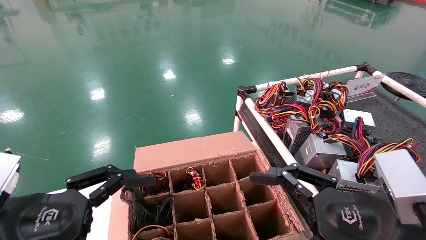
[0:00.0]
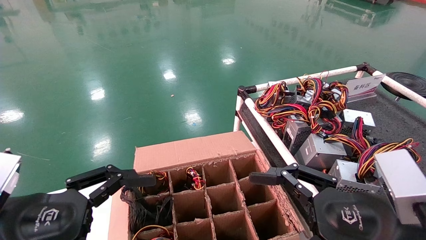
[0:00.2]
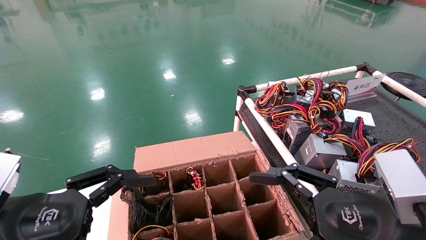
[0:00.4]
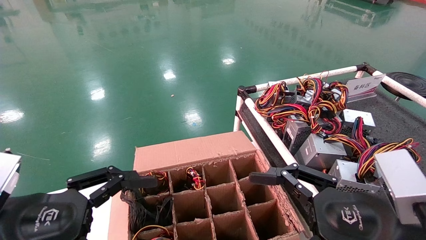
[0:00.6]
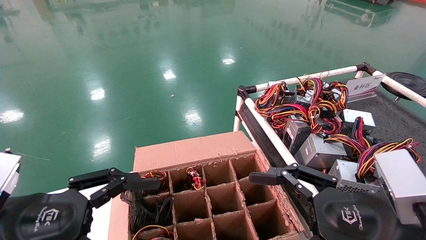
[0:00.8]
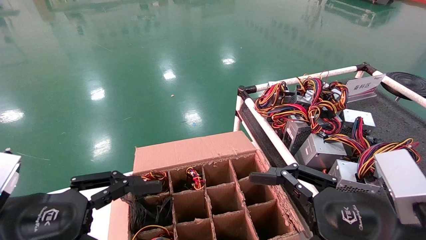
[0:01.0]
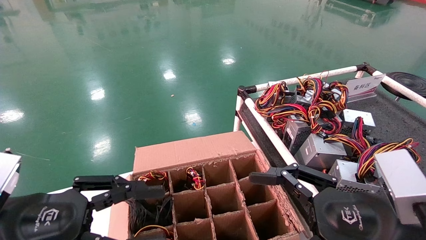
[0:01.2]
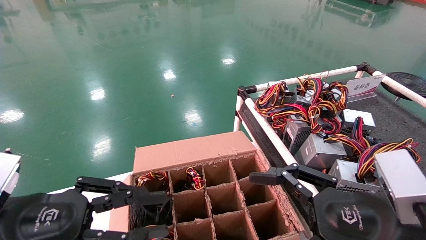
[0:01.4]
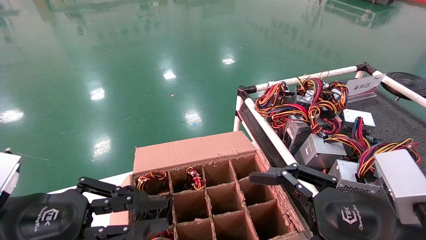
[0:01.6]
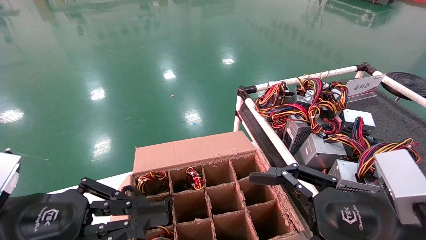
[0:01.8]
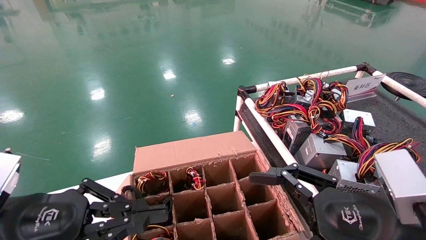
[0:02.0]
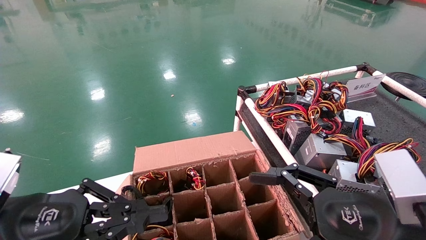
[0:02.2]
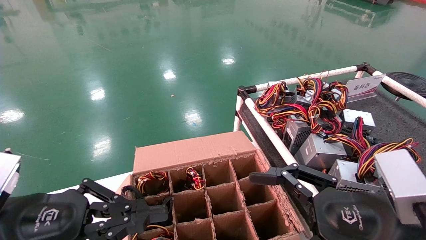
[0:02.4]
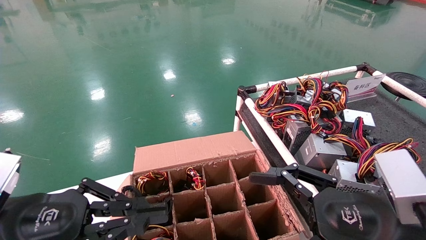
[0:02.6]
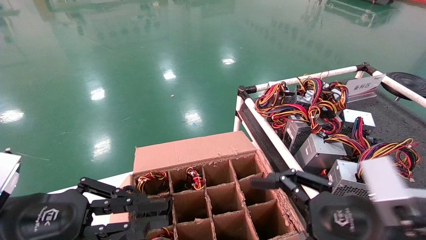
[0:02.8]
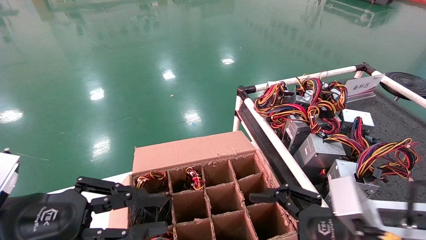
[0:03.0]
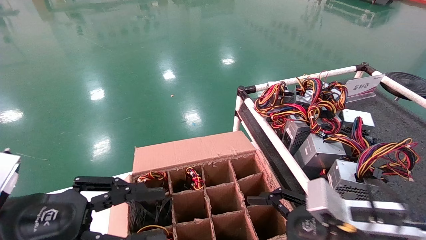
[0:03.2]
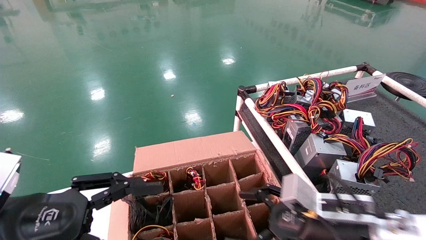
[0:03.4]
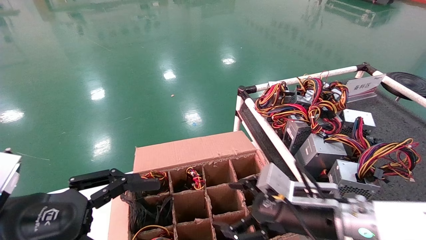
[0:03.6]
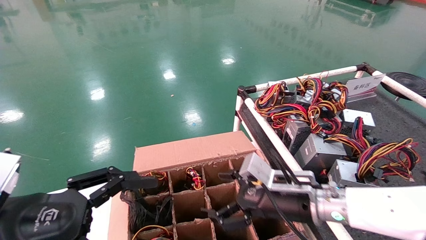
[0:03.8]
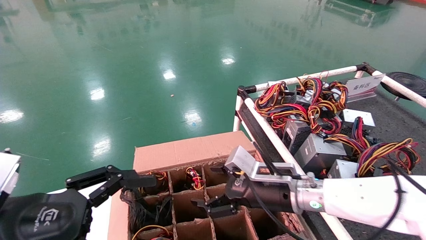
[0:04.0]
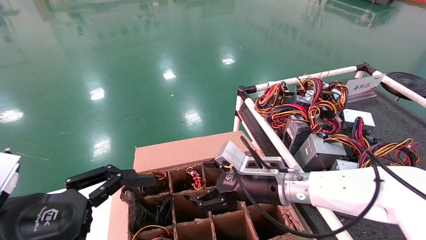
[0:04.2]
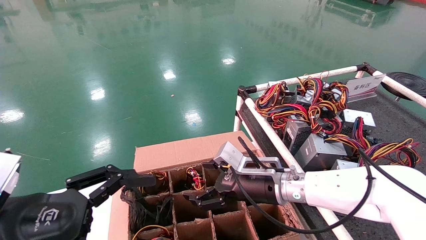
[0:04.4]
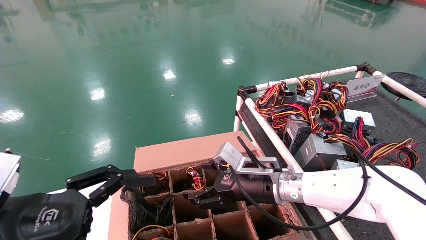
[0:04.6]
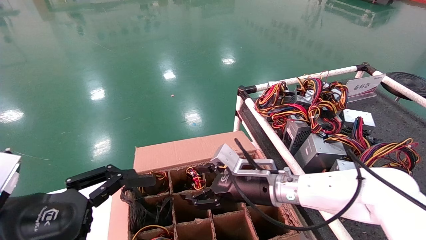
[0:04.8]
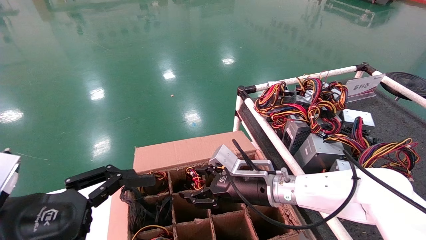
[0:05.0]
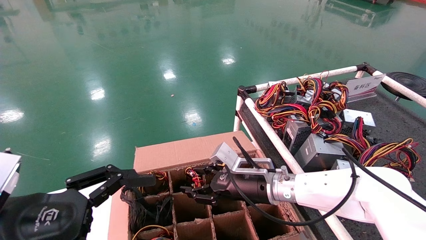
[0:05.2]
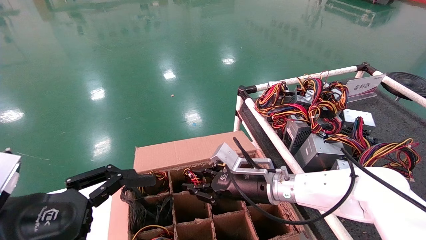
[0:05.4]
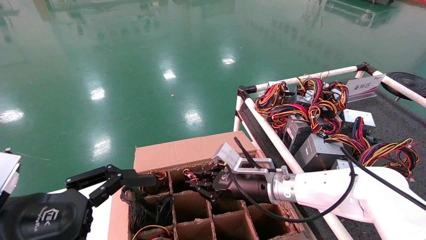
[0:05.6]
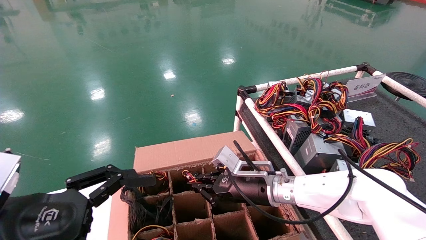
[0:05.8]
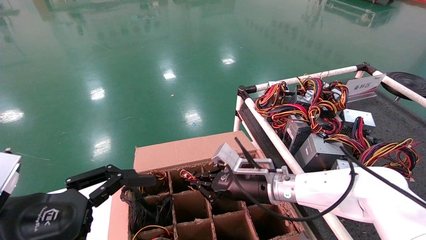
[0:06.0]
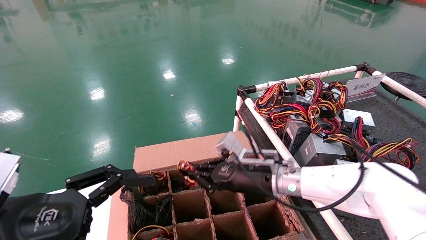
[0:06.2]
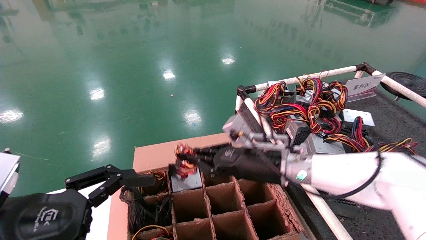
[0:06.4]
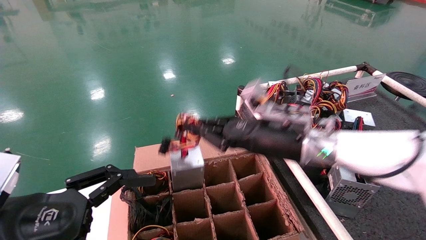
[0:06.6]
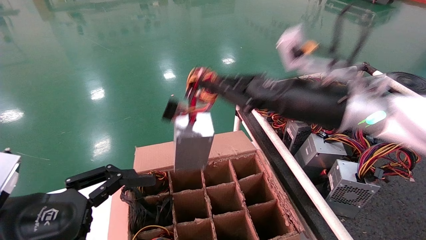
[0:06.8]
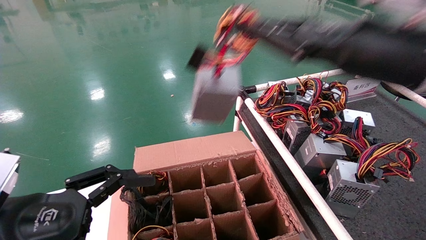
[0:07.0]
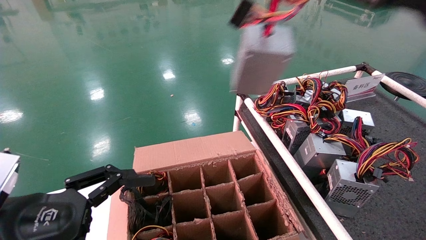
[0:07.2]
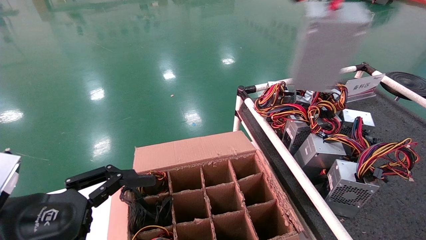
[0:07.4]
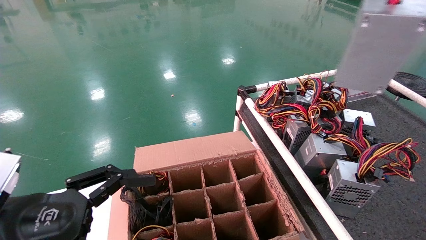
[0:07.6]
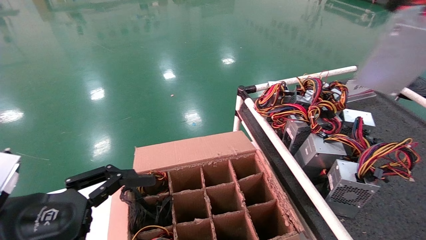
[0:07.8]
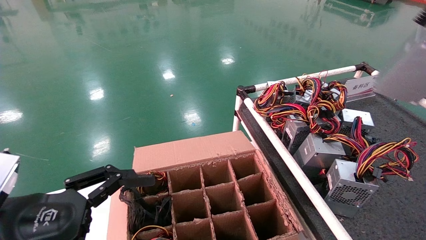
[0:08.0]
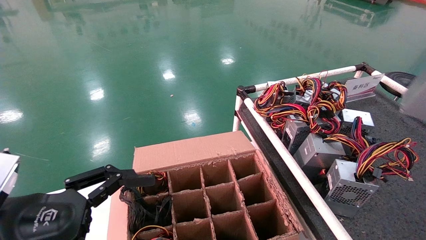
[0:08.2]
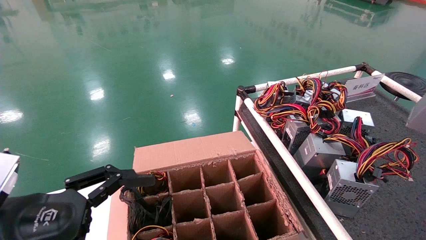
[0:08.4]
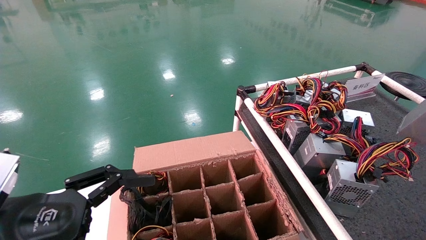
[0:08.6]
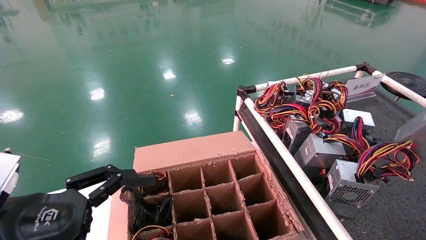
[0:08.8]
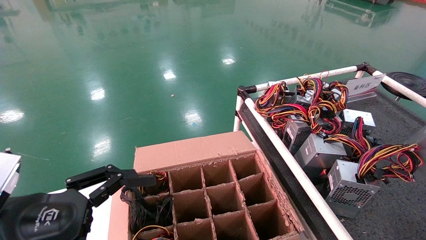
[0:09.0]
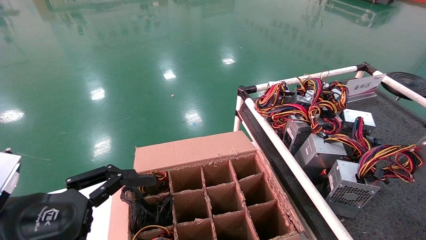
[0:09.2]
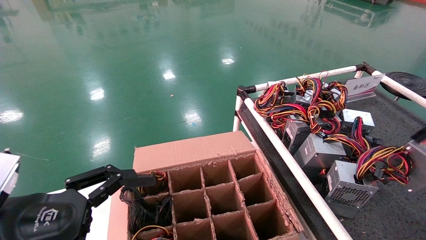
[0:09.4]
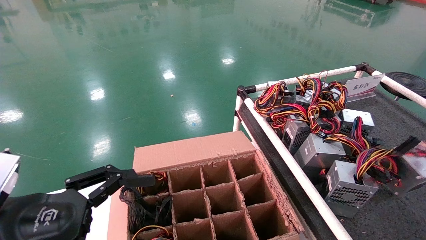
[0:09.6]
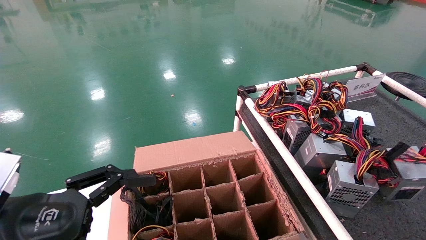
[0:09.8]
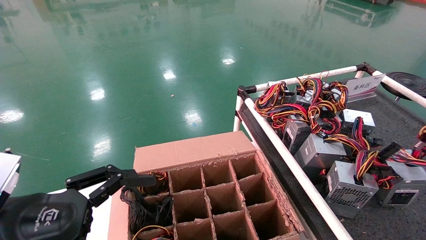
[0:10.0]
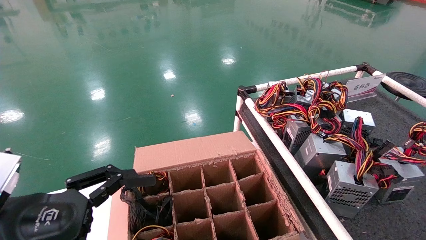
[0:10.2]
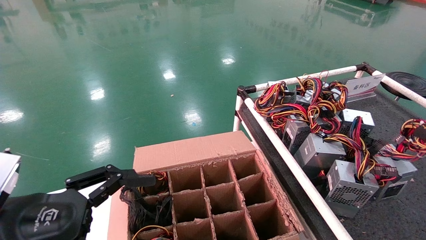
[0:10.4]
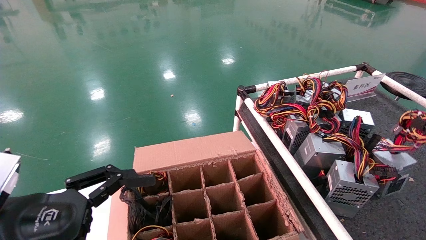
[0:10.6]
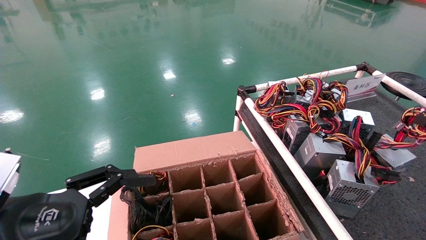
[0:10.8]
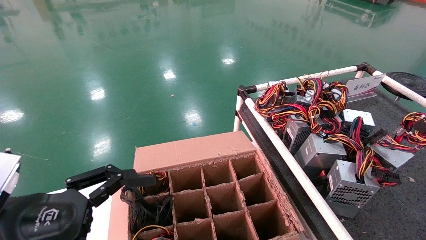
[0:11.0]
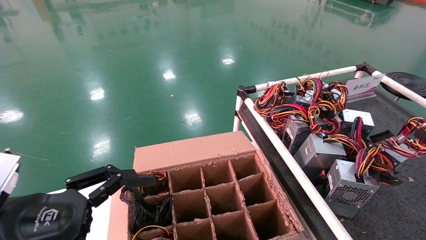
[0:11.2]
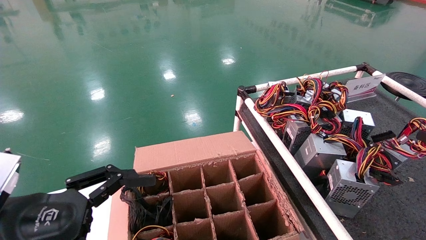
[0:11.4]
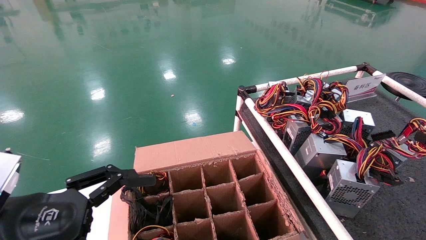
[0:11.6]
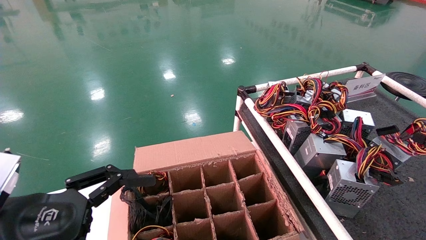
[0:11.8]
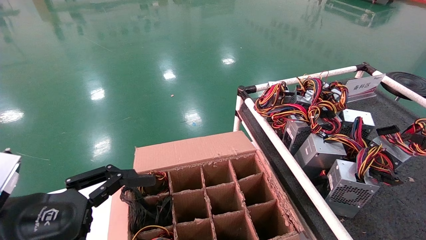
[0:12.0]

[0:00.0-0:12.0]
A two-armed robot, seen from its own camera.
Step, 0:03.0 to 0:05.8: Grab and lift the power supply from the large box.
0:00.0 to 0:01.6: The left gripper closes its fingers.
0:01.6 to 0:03.0: The right gripper moves some 5 cm.
0:03.0 to 0:04.4: The left gripper opens up. The right gripper heads forward and to the left, covering roughly 20 cm.
0:04.4 to 0:06.0: The right gripper closes its fingers.
0:06.0 to 0:07.6: The right gripper heads upward, to the right and backward, covering approximately 50 cm.
0:07.6 to 0:09.0: The right gripper travels to the right and downward by some 20 cm.
0:09.0 to 0:10.4: The right gripper heads forward and downward, covering approximately 10 cm.
0:10.4 to 0:12.0: The grippers move only a little.

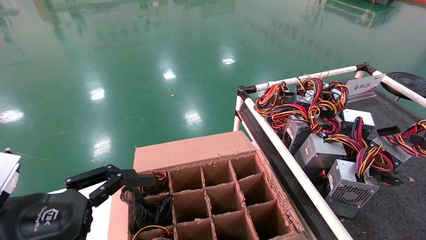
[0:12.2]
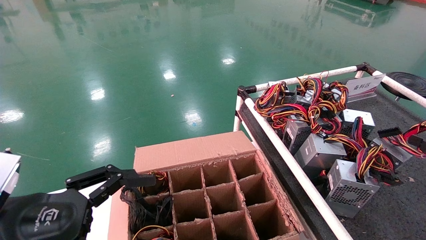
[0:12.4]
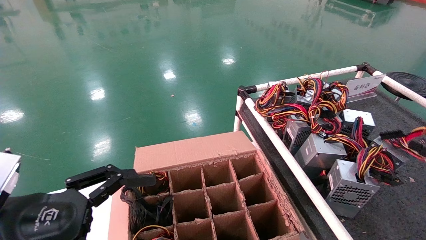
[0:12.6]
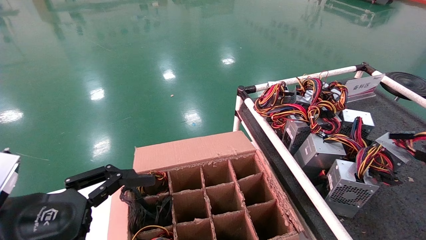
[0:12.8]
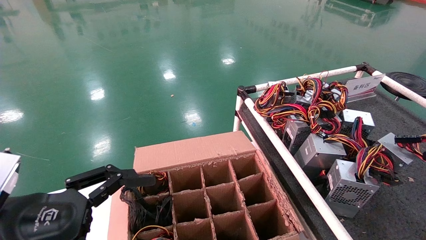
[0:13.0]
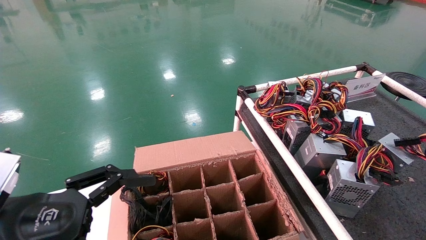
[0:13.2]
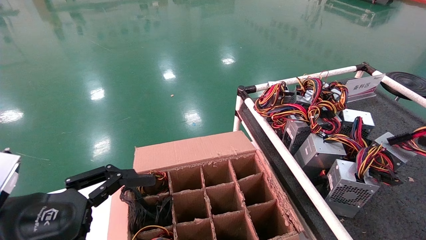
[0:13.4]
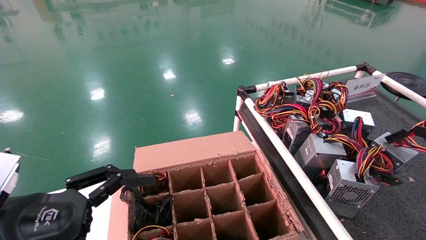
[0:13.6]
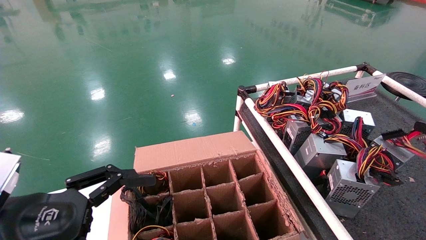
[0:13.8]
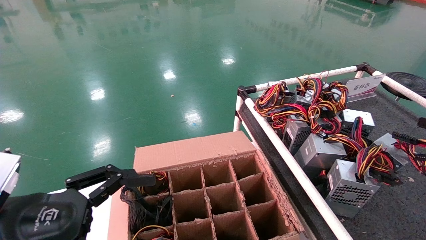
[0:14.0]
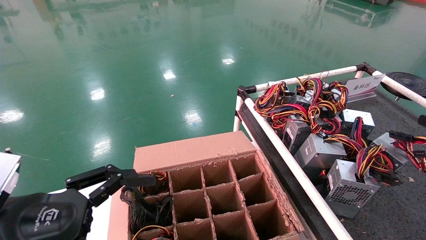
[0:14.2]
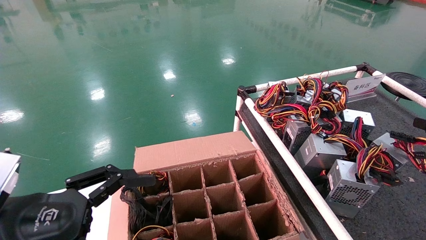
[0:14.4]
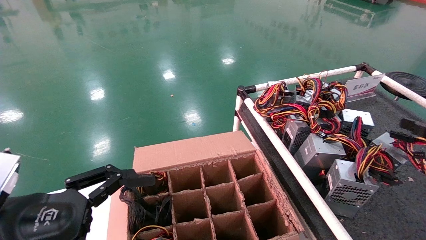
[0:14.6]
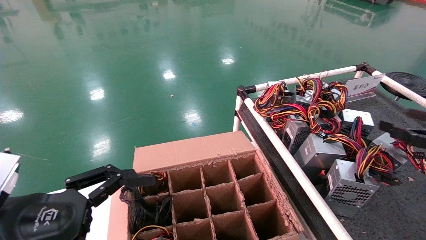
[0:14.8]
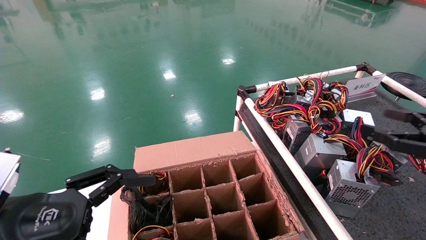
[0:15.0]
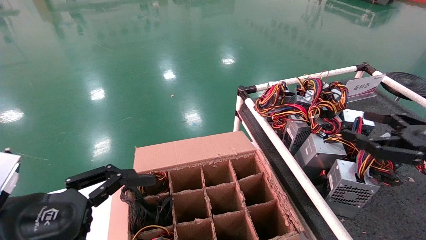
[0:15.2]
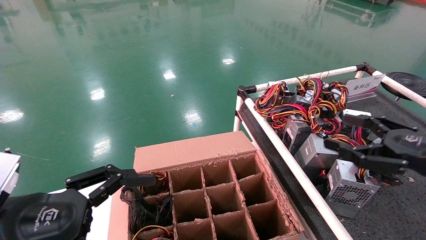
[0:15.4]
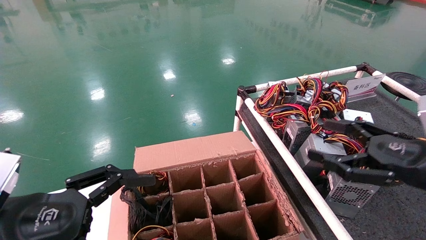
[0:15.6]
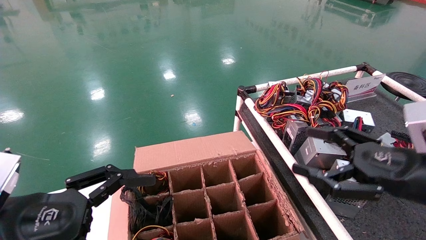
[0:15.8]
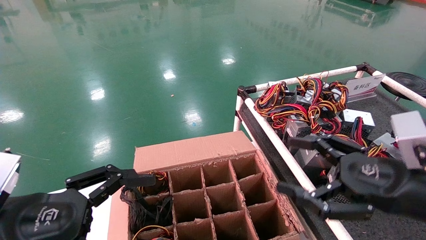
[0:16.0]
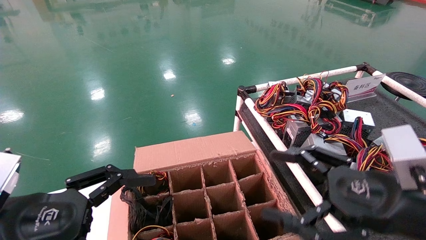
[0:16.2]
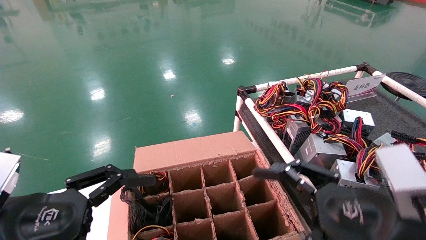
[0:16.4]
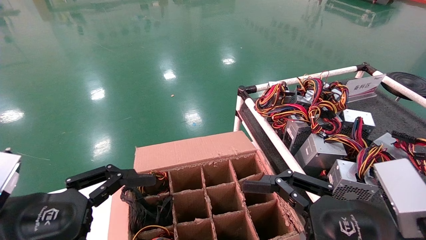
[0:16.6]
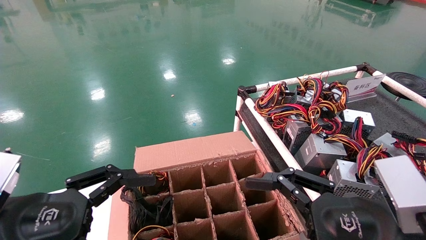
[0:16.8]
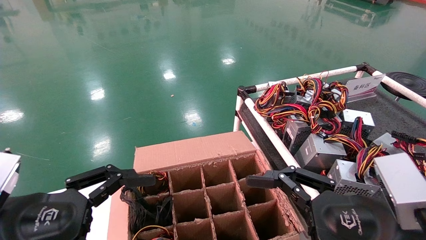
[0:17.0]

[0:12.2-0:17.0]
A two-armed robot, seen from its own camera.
0:12.2 to 0:13.8: The right gripper opens its fingers.
0:13.8 to 0:15.4: The right gripper moves to the left, some 15 cm.
0:15.4 to 0:17.0: The right gripper moves to the left and backward, some 15 cm.
